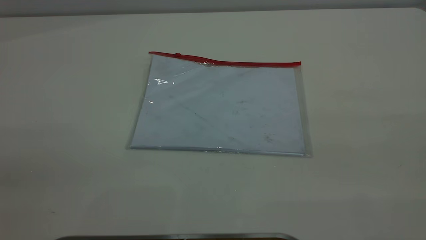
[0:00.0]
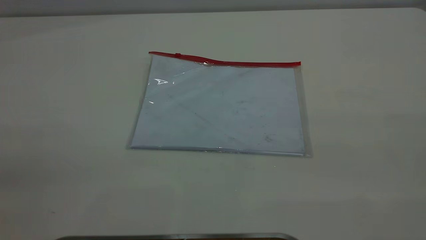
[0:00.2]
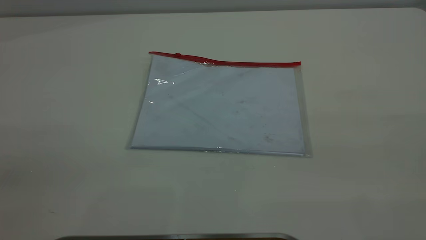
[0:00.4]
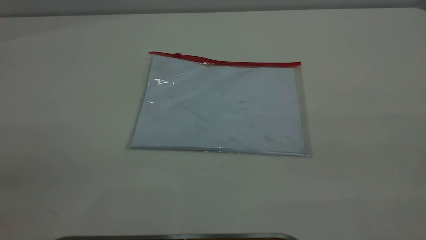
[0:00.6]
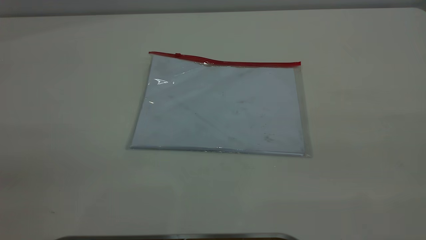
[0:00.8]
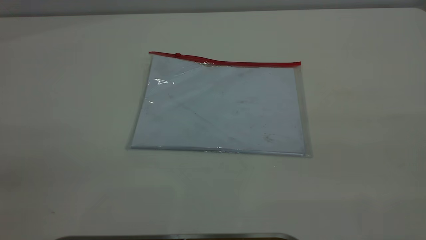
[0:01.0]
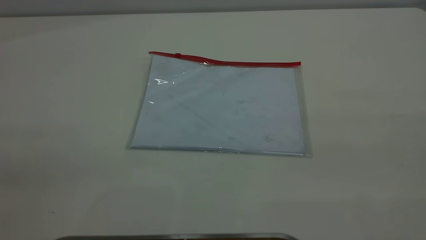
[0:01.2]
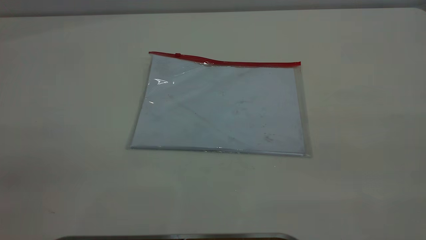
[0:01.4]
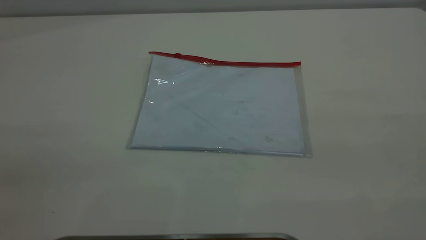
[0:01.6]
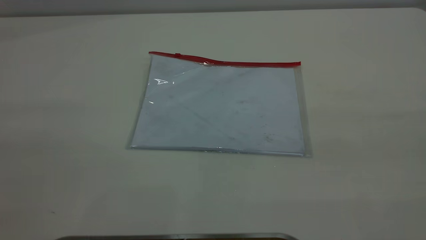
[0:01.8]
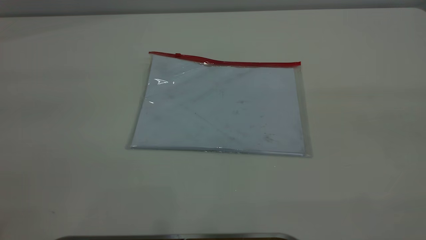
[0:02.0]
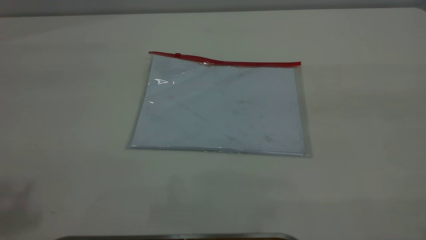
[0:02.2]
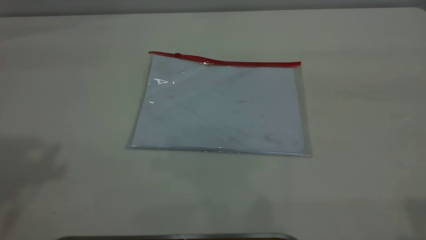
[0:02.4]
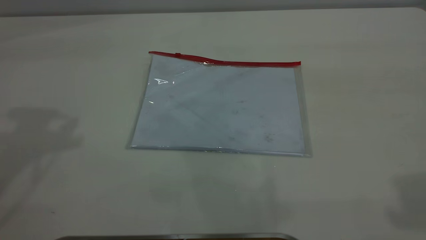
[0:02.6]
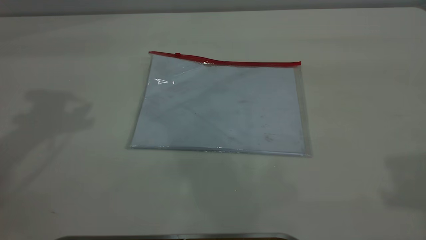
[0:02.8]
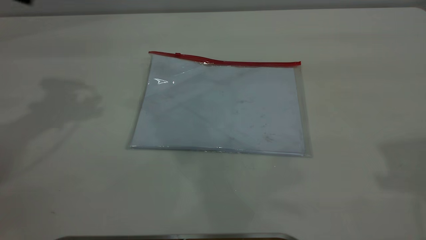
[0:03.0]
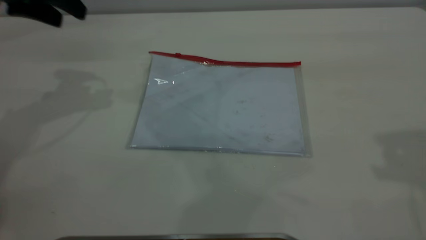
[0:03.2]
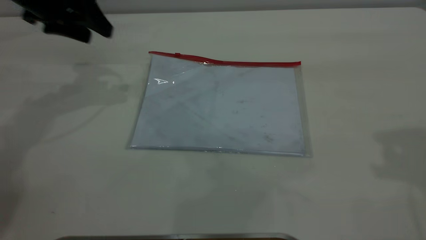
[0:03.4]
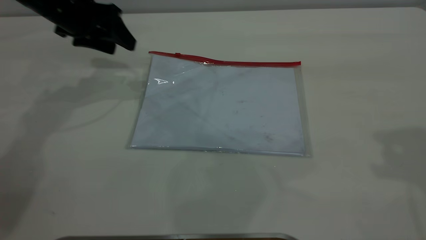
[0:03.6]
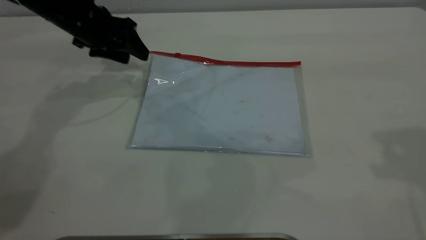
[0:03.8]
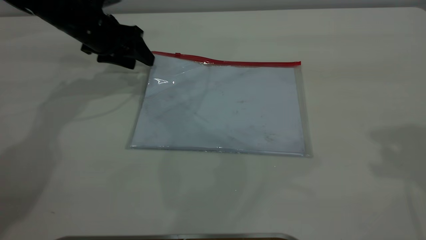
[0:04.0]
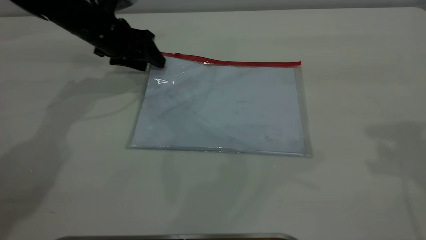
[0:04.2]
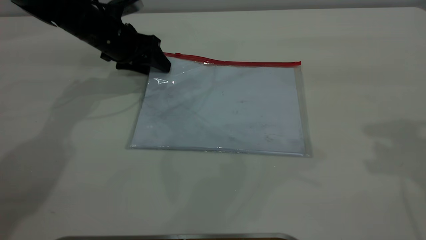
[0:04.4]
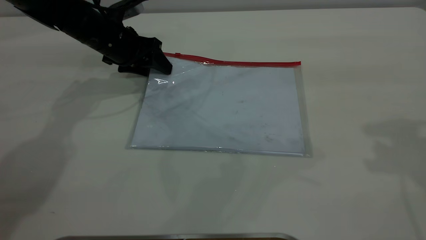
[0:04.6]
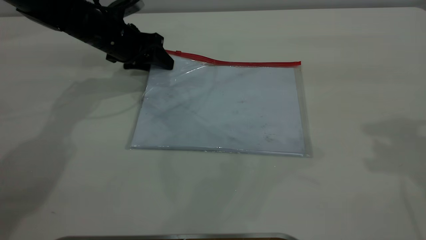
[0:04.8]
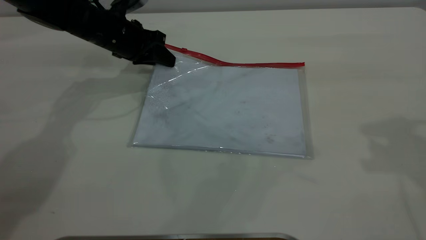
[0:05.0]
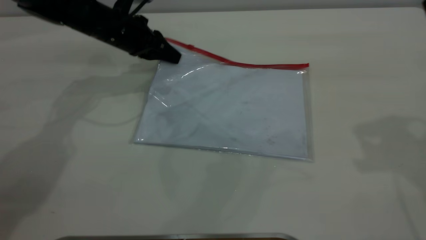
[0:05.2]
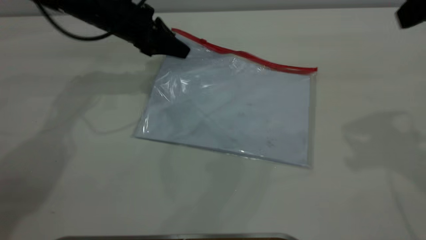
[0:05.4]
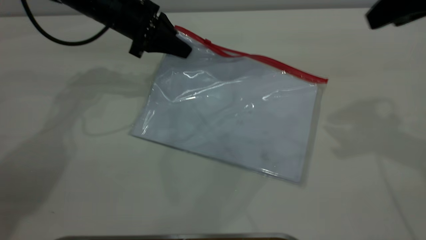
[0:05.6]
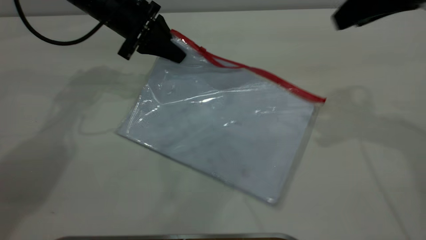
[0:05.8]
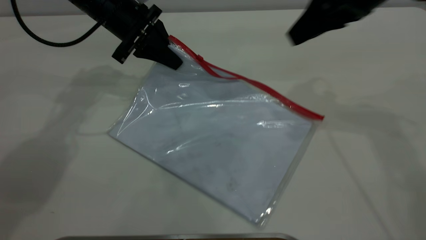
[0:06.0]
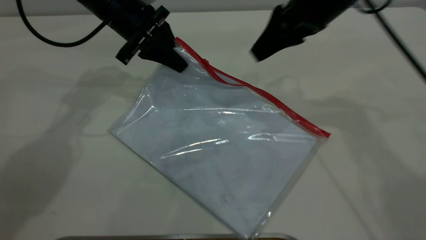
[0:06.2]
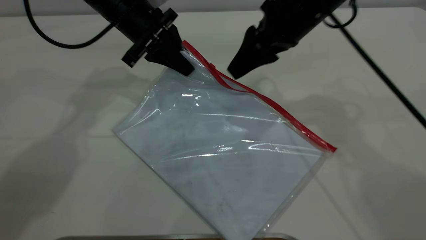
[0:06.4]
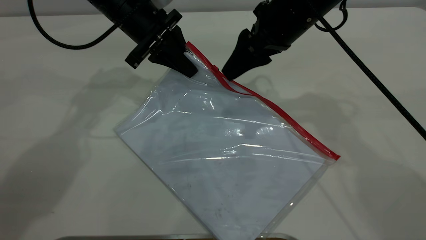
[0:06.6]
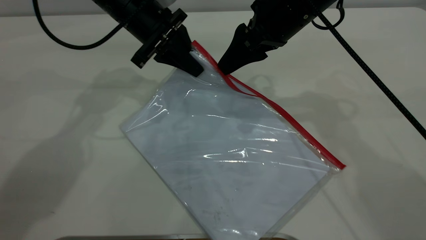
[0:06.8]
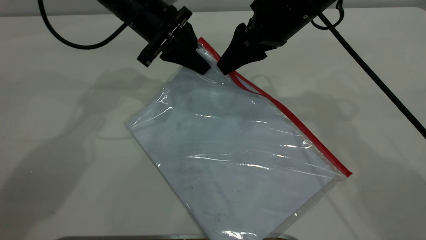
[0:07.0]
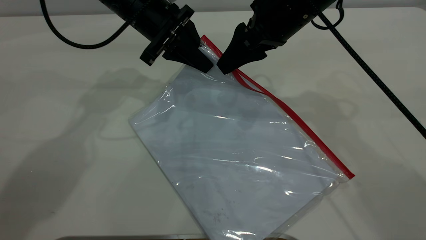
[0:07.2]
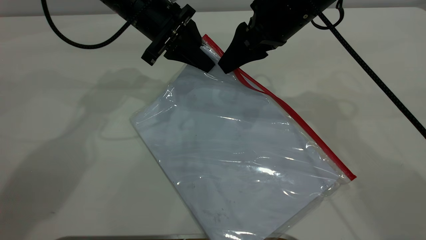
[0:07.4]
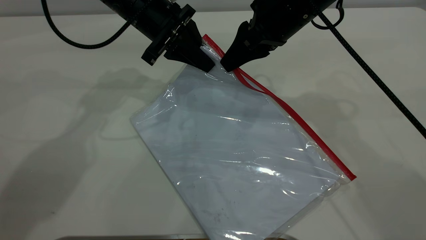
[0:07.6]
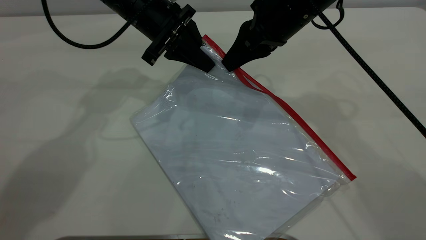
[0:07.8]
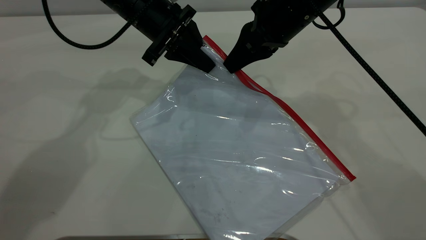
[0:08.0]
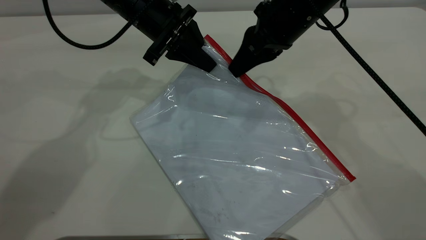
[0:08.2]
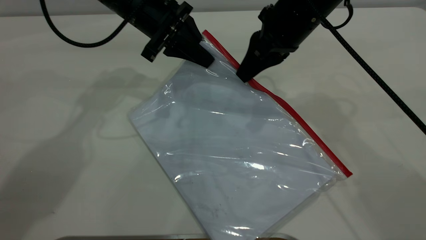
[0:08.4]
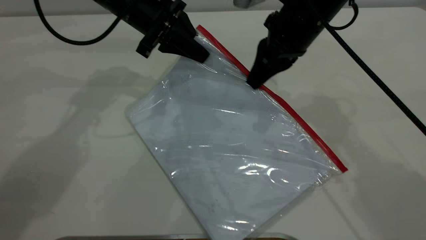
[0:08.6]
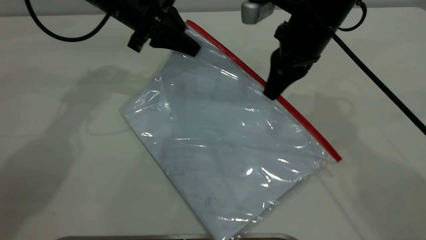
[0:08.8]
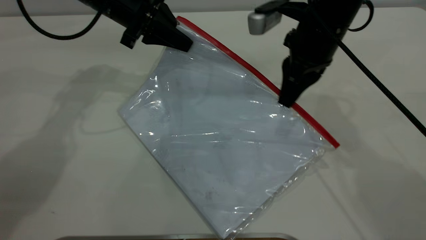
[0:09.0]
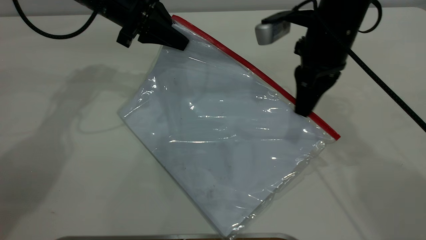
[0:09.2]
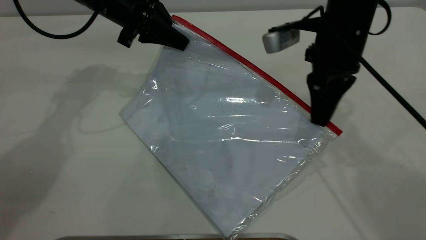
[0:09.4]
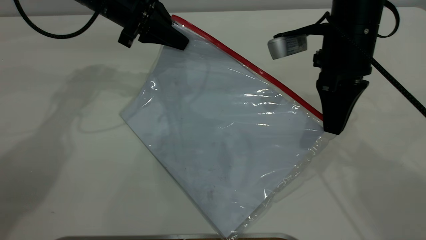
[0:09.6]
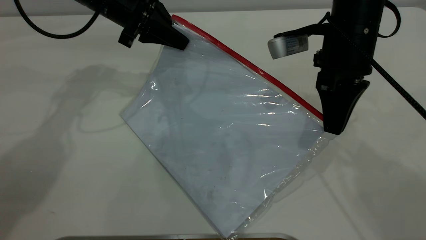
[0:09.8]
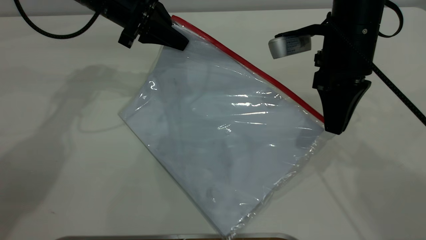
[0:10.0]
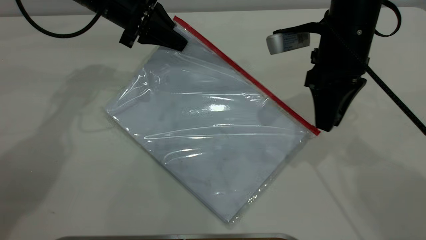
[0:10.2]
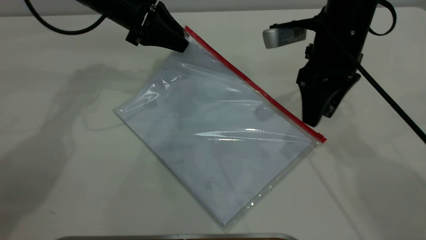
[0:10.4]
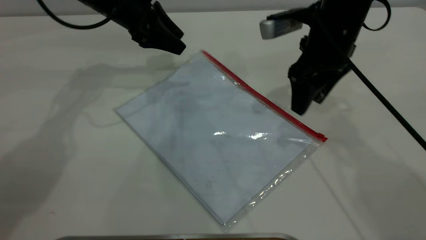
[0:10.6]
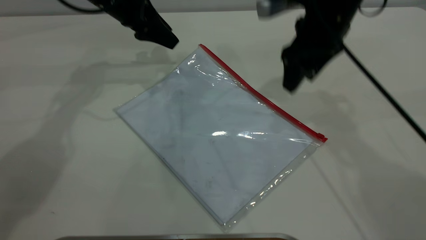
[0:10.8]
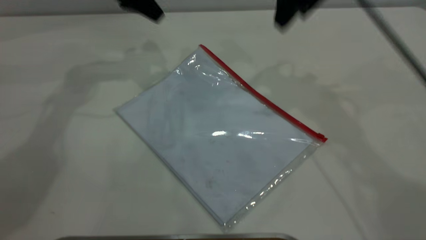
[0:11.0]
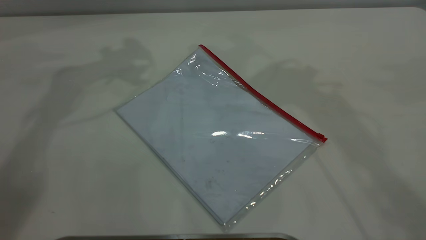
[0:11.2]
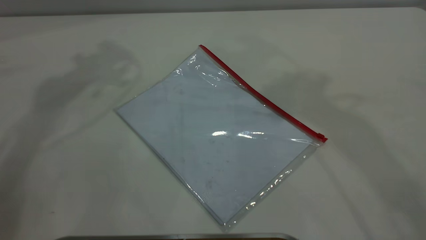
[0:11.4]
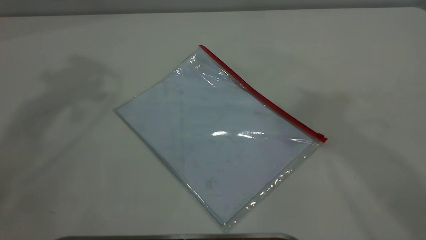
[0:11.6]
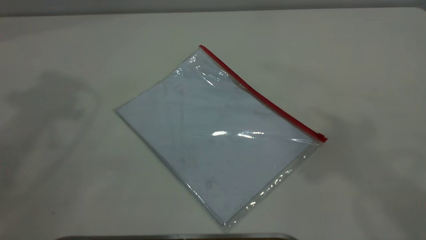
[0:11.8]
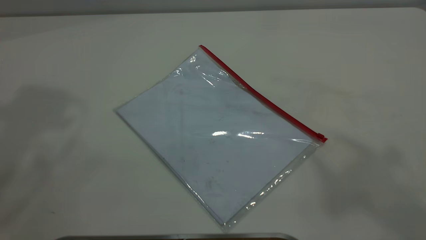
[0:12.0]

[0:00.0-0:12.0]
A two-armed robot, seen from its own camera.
Step, 0:00.0 to 0:05.2: Pick up the transparent plastic bag with the left gripper.
Step, 0:05.4 to 0:10.2: Pulling up the zipper on the transparent plastic bag with the right gripper to close it.
Step, 0:10.4 to 0:10.8: Place the transparent plastic bag.
0:00.0 to 0:01.6: Neither gripper changes place.
0:03.0 to 0:04.4: The left gripper travels downward, forward and to the right by approximately 25 cm; the right gripper is displaced downward by approximately 5 cm.
0:04.4 to 0:06.0: The right gripper heads forward, to the left and downward, covering approximately 20 cm. Meanwhile the left gripper goes approximately 5 cm upward, and closes up.
0:06.0 to 0:07.6: The left gripper shifts roughly 5 cm to the right. Meanwhile the right gripper shifts roughly 10 cm to the left, and closes up.
0:07.6 to 0:09.0: The left gripper moves to the left, about 5 cm.
0:09.0 to 0:10.4: The left gripper opens up, while the right gripper opens its fingers.
0:10.4 to 0:12.0: The left gripper heads upward, covering some 40 cm. The right gripper moves upward and backward, about 50 cm.
